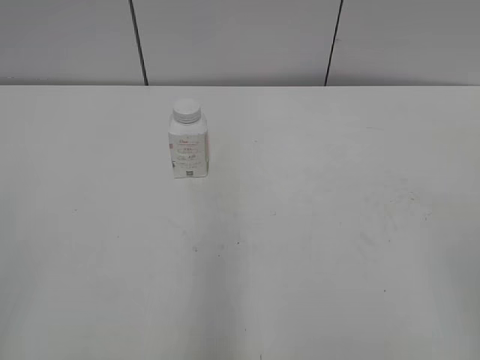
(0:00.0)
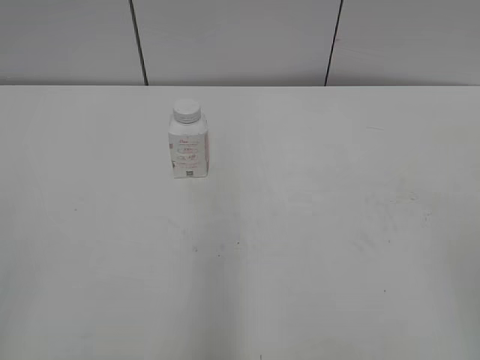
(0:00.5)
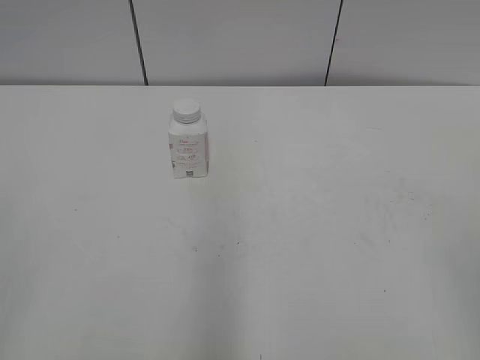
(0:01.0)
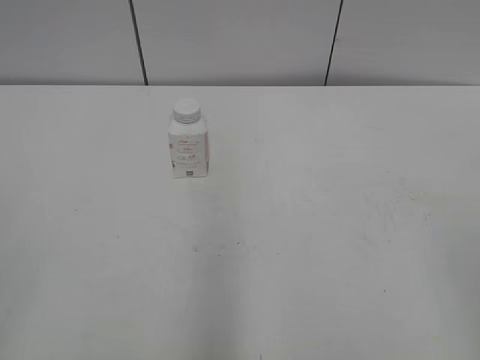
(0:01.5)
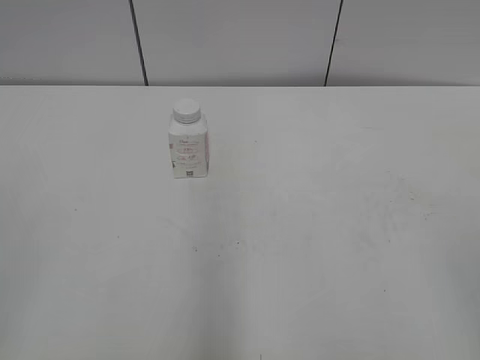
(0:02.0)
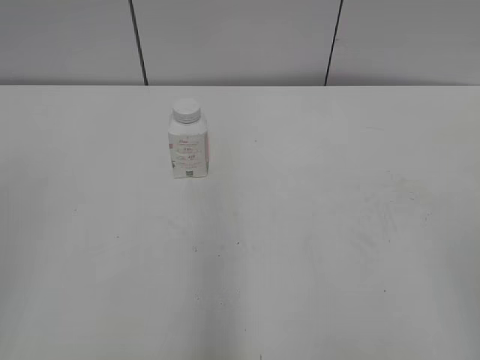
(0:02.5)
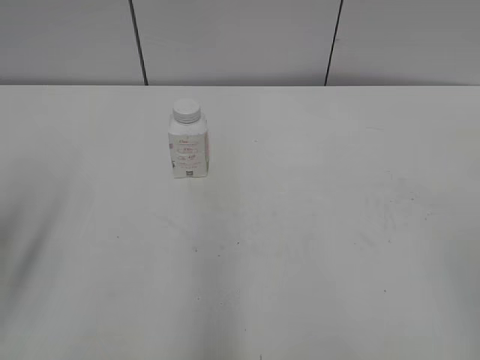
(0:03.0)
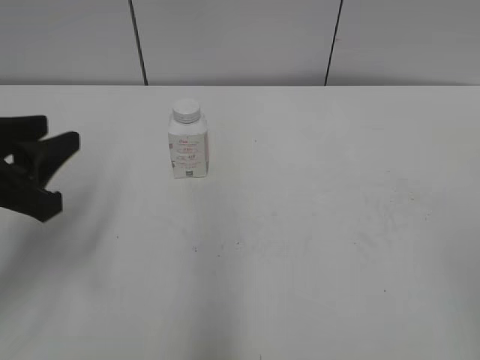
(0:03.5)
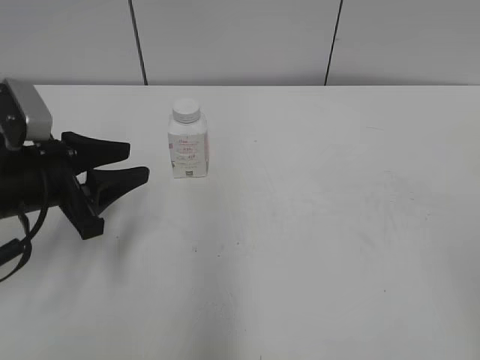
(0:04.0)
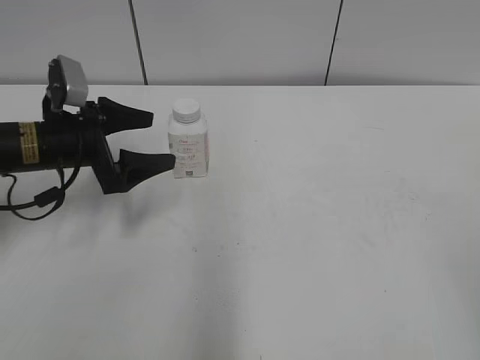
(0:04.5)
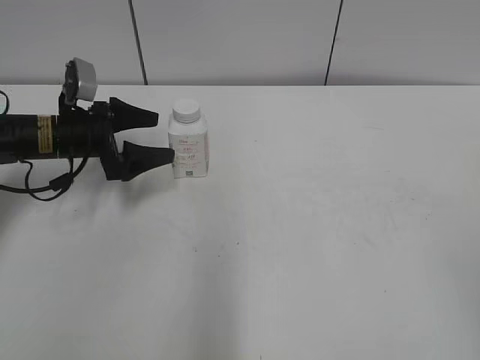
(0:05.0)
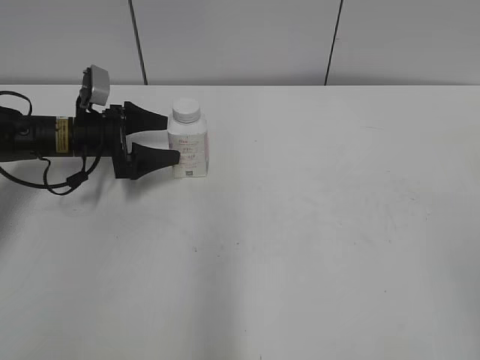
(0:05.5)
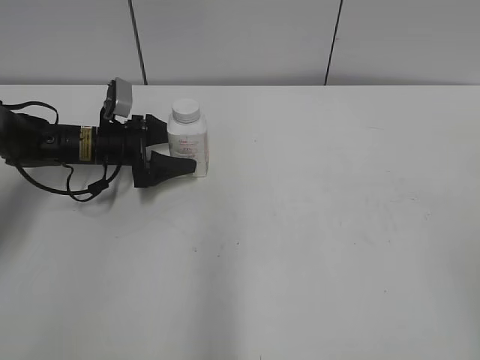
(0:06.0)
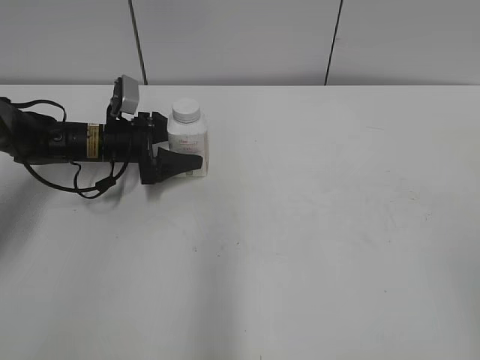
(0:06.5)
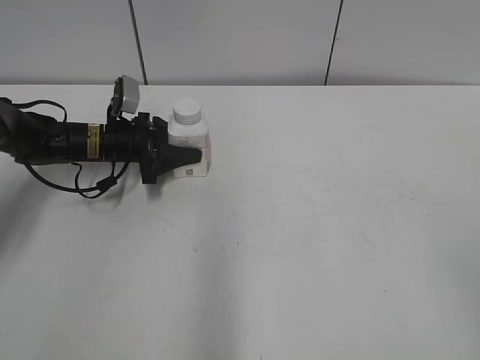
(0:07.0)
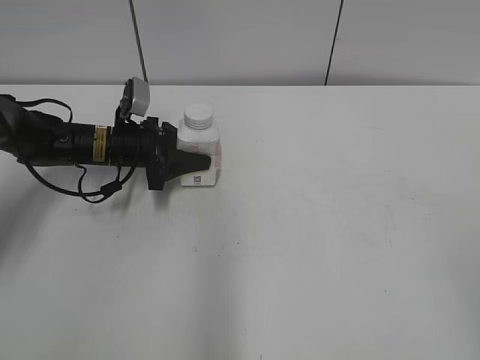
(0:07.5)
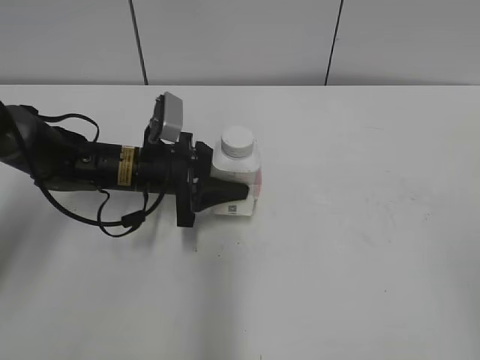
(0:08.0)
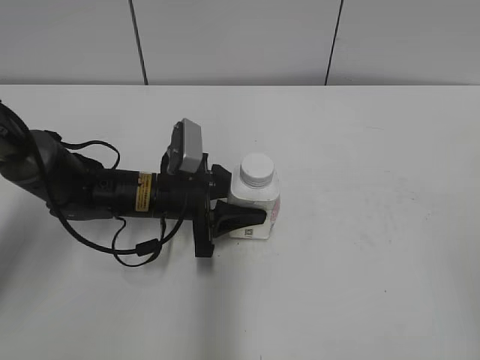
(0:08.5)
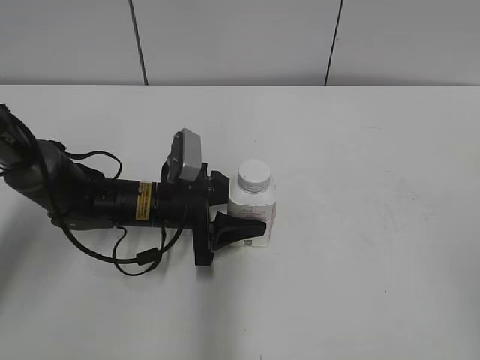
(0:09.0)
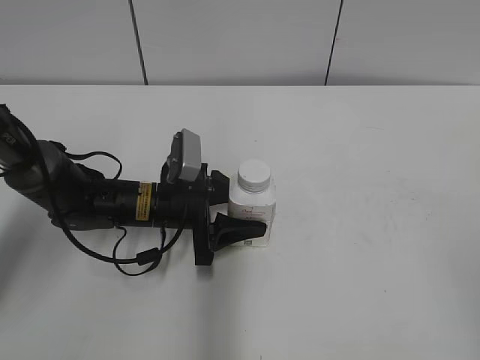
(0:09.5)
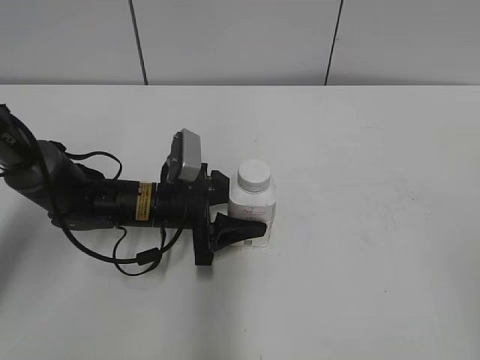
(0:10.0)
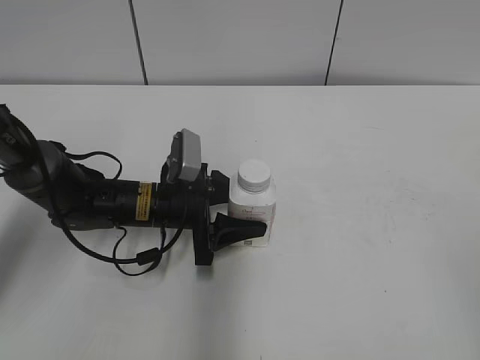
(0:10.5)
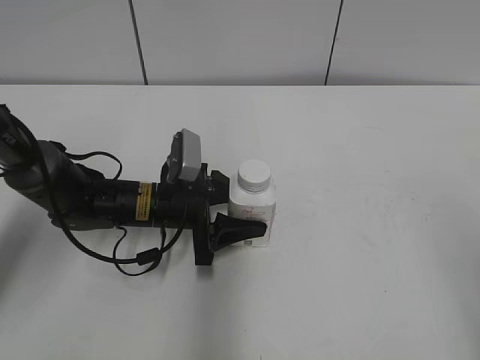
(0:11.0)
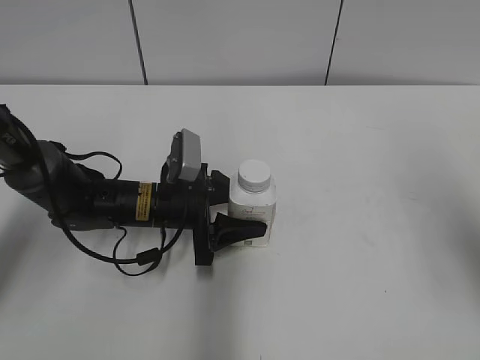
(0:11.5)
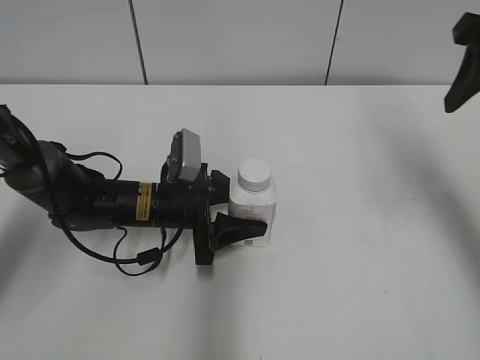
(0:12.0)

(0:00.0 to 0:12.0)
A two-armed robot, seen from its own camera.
Step, 0:00.0 - 0:07.0: Grasp the bottle and move it to the center of the table with the left gripper.
Step, 0:07.5 - 0:09.0: Lift the bottle and move it to the center of the table with the left gripper.
0:02.0 - 0:04.0: The left gripper moves forward and downward, roughly 30 cm.
0:04.0 - 0:06.0: The left gripper goes about 20 cm forward and downward, and opens its fingers.
0:06.0 - 0:08.0: The left gripper heads to the right and backward, covering about 10 cm, and closes its fingers.
0:08.0 - 0:10.0: The left gripper moves about 5 cm.
0:10.0 - 0:12.0: The right gripper heads forward, covering approximately 30 cm.

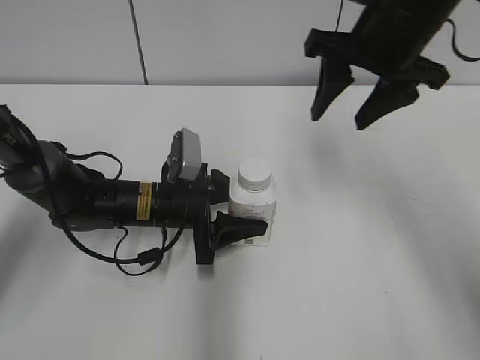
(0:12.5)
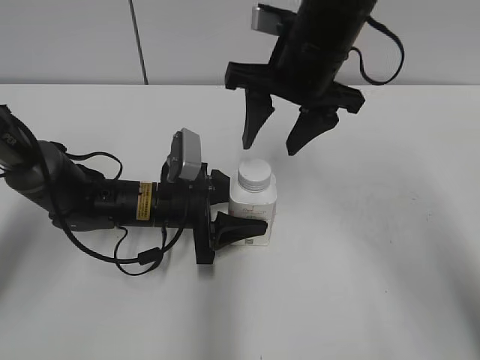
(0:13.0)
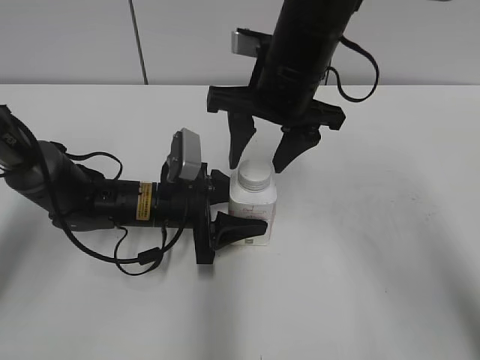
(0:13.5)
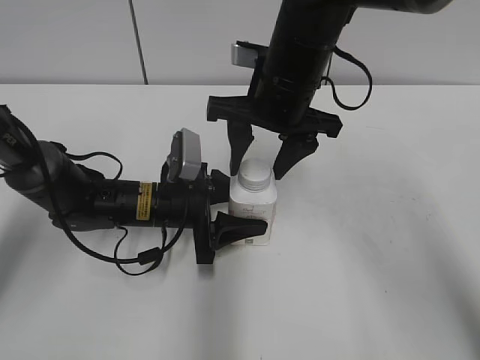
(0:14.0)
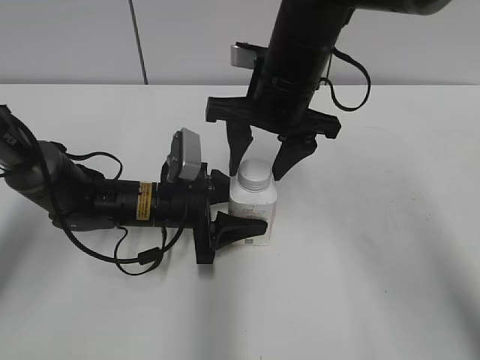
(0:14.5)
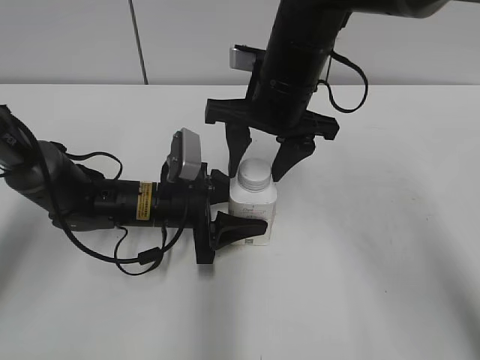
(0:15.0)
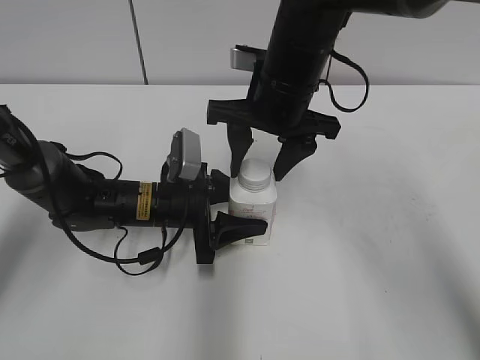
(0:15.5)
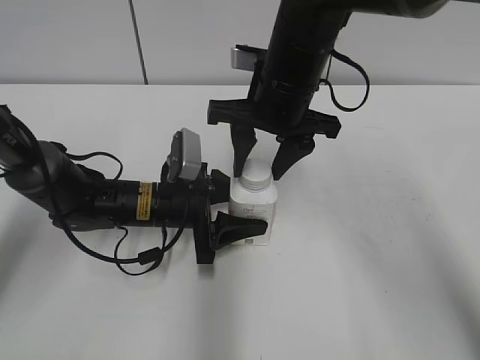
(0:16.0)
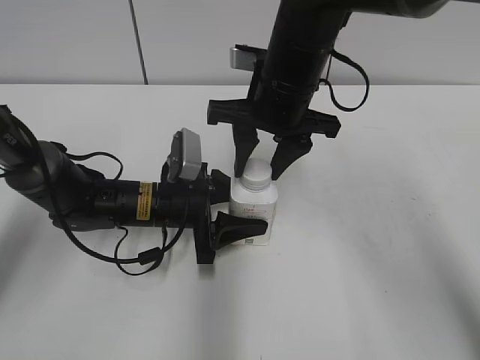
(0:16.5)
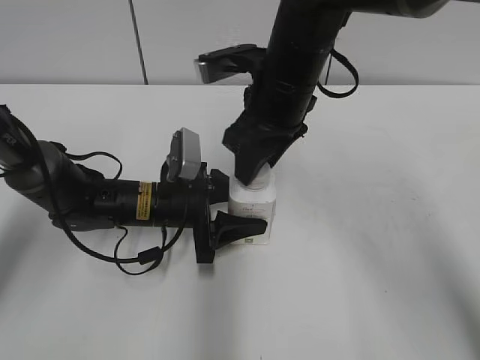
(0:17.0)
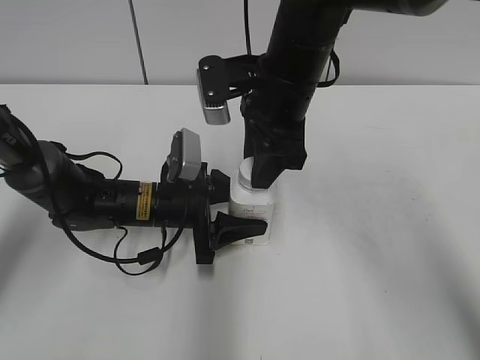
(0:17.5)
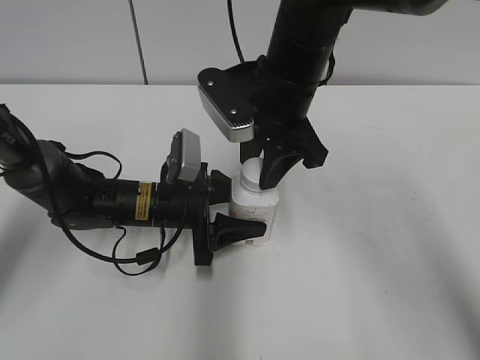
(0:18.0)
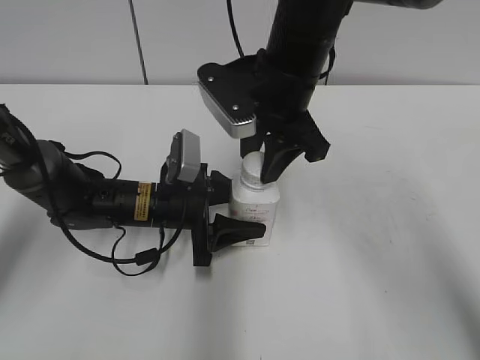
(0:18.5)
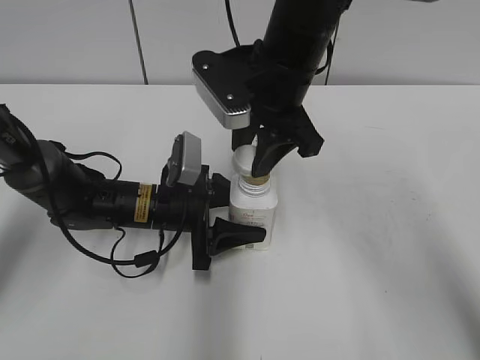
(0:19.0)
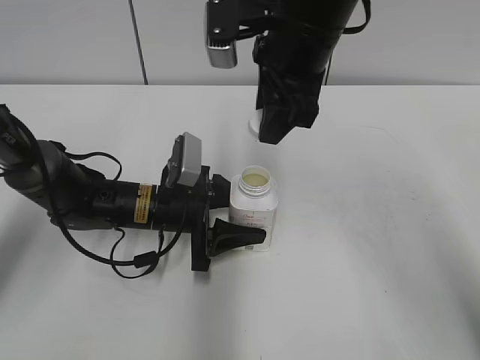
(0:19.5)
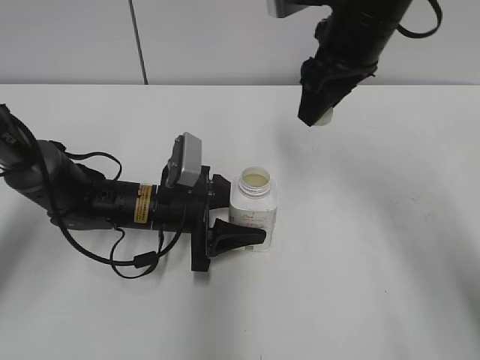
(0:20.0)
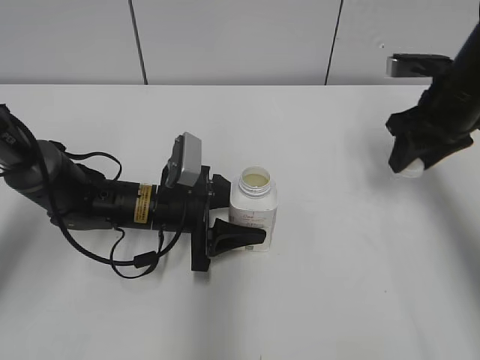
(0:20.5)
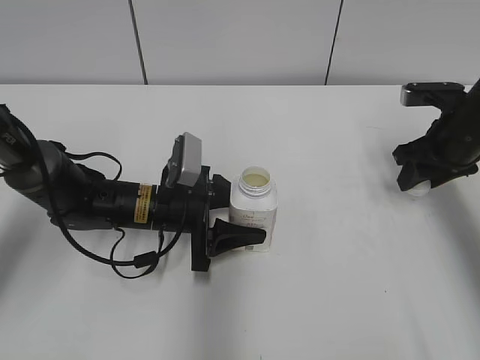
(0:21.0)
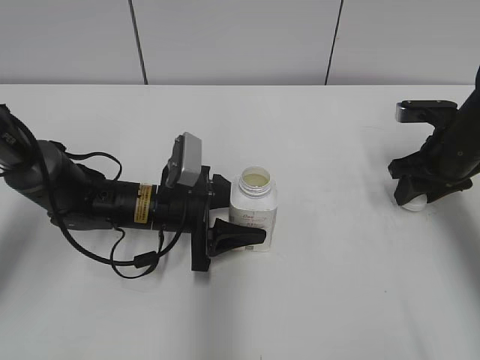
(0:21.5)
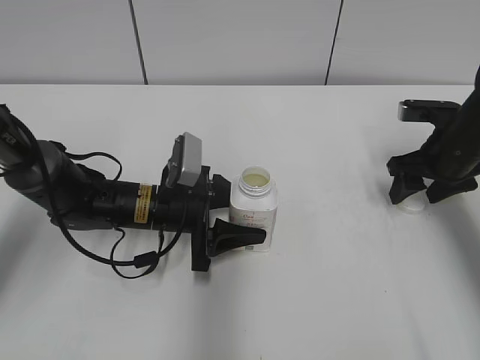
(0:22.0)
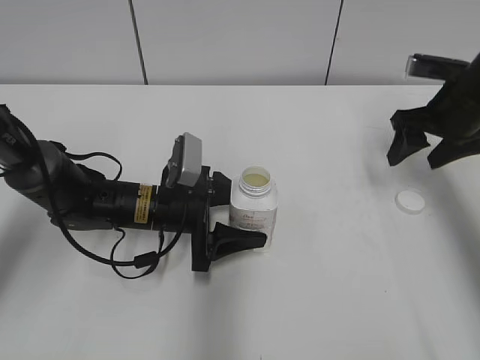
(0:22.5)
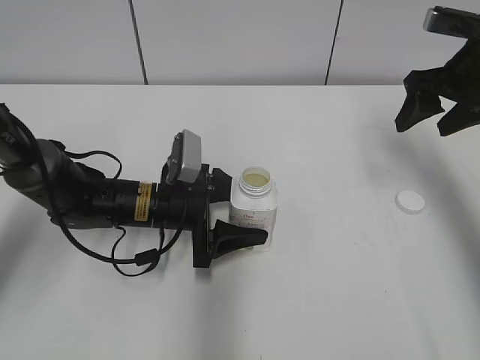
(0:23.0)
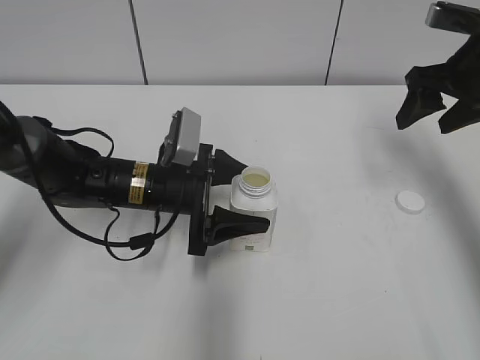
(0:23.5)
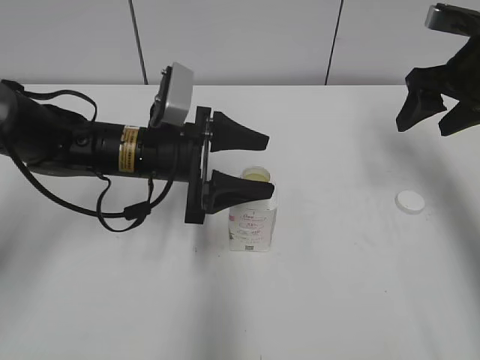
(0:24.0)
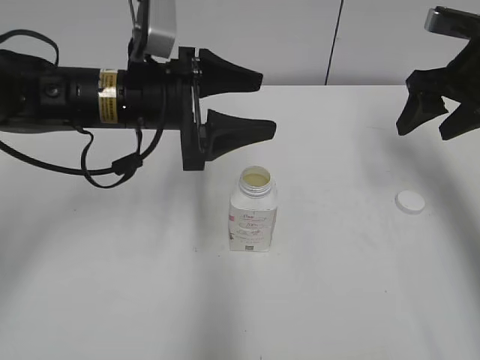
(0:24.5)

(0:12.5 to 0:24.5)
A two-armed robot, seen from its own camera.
Step, 0:12.5 - 0:19.0: Unscrew the bottle cap with the right gripper while holding the bottle with the left gripper.
Step, 0:19.5 - 0:21.5: Place the bottle cap on the table with the right gripper.
Step, 0:22.0 - 0:23.5: Place the bottle on the table with the left gripper.
0:12.5 - 0:14.5: The right gripper shifts roughly 10 cm to the left and downward.
0:14.5 - 0:16.5: The right gripper closes up.
0:18.5 - 0:20.5: The right gripper travels to the right by roughly 20 cm.
0:20.5 - 0:22.5: The right gripper opens.
0:22.5 - 0:24.5: The left gripper shifts roughly 15 cm upward. Meanwhile the right gripper moves upward, about 5 cm.

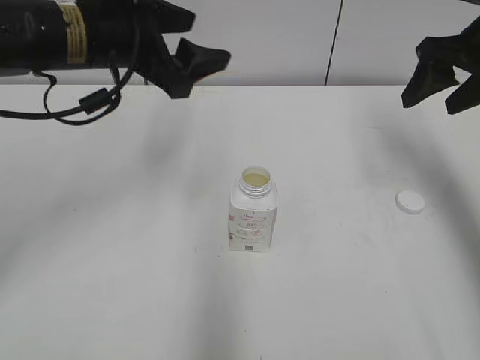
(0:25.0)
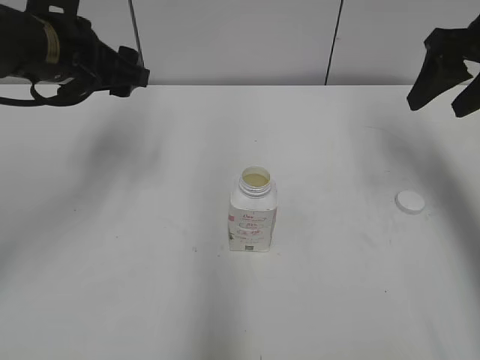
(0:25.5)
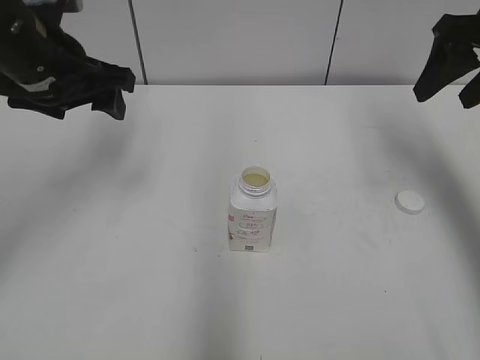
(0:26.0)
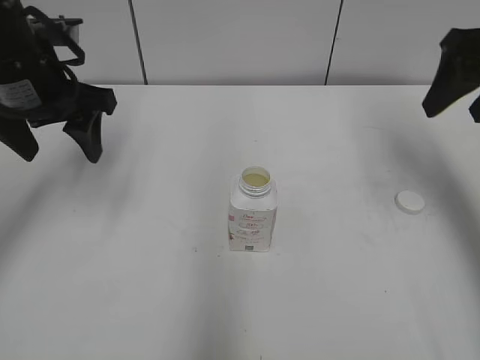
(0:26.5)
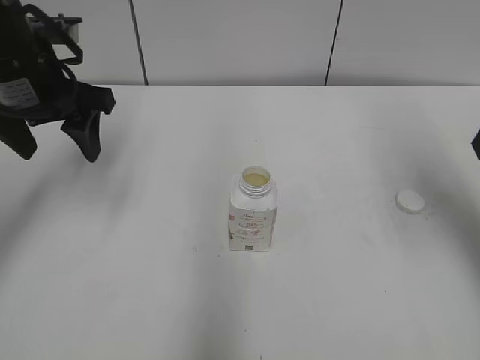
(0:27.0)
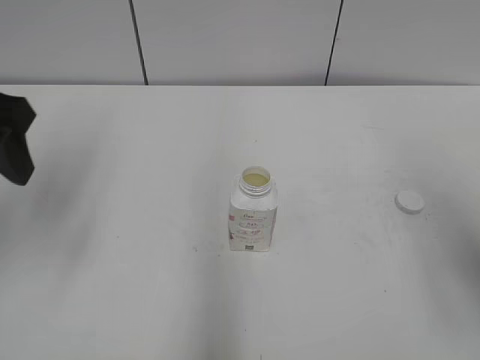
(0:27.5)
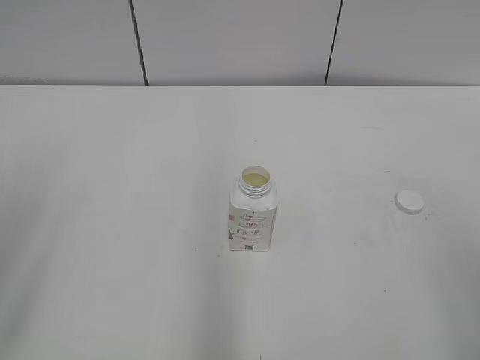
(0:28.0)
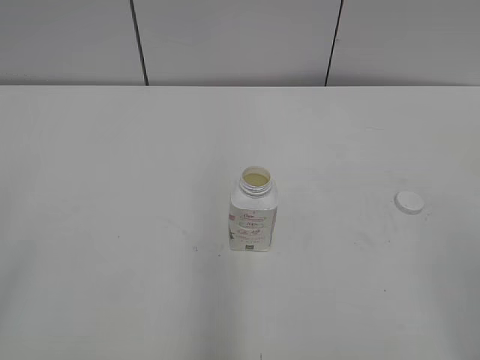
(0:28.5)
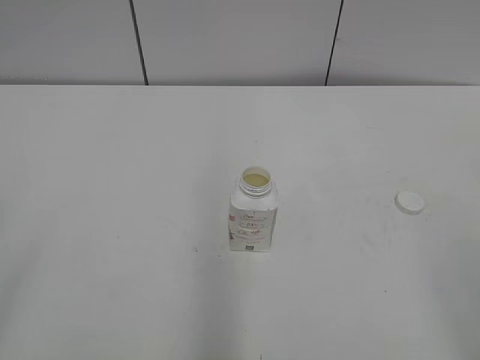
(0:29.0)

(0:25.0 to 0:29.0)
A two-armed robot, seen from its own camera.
0:25.0 - 0:27.0: The left gripper travels to the left by roughly 10 cm. The right gripper moves backward, about 10 cm.
0:27.0 - 0:29.0: The grippers both shift backward by roughly 30 cm.
